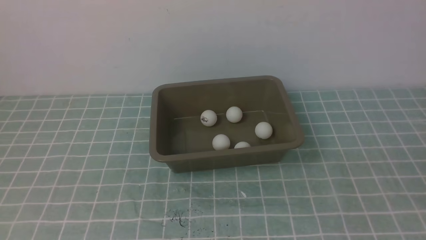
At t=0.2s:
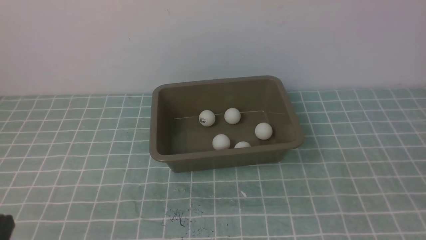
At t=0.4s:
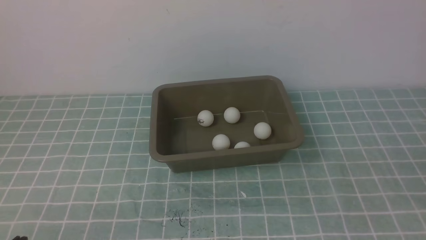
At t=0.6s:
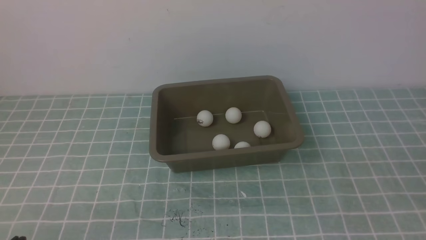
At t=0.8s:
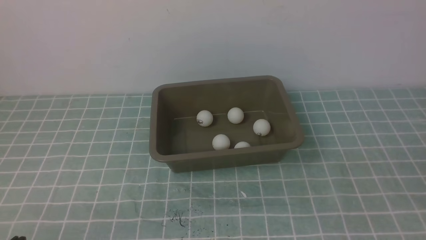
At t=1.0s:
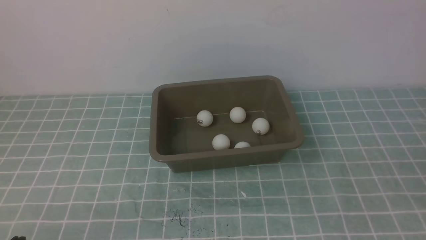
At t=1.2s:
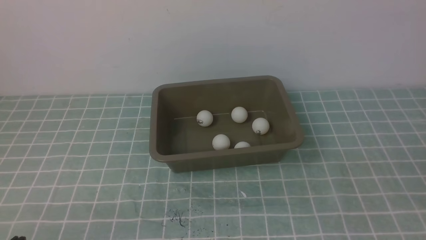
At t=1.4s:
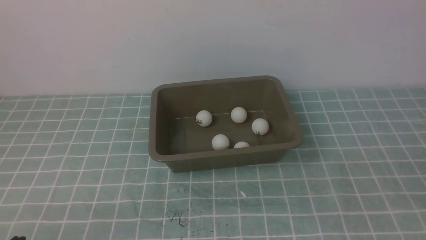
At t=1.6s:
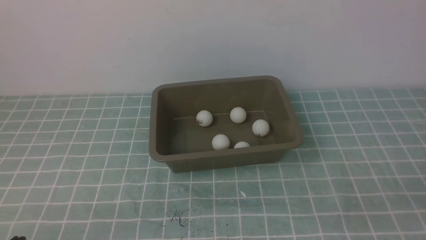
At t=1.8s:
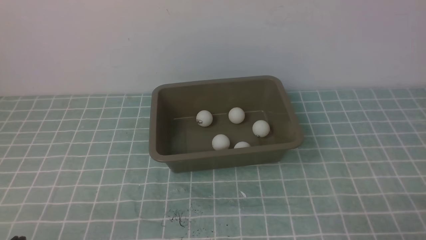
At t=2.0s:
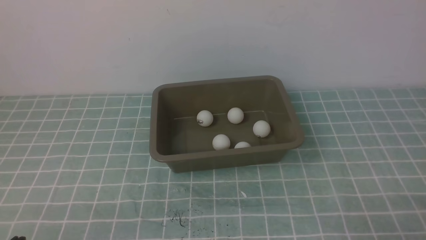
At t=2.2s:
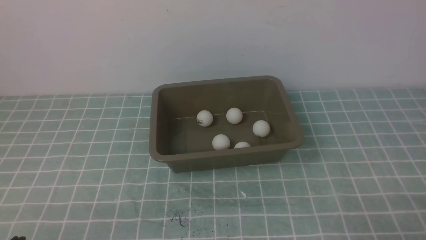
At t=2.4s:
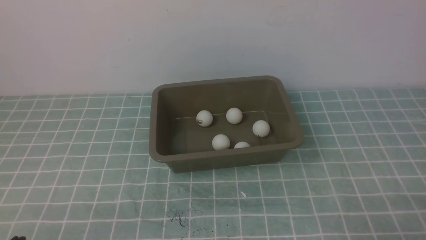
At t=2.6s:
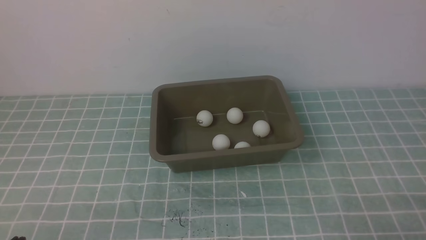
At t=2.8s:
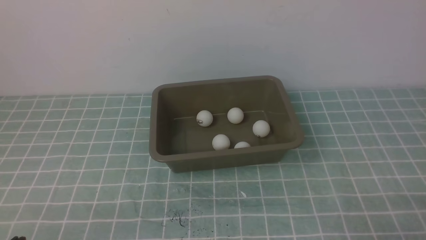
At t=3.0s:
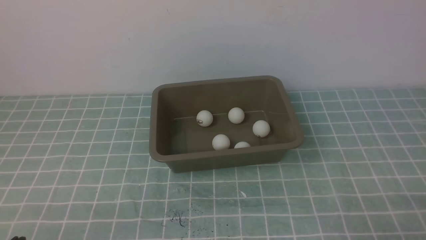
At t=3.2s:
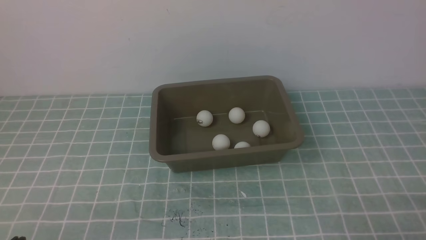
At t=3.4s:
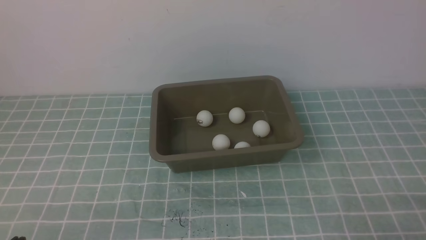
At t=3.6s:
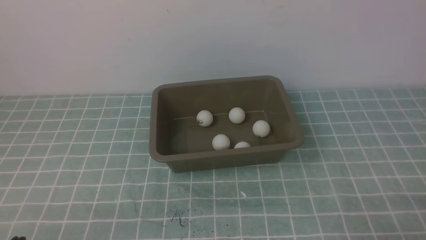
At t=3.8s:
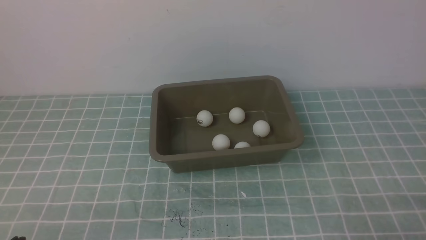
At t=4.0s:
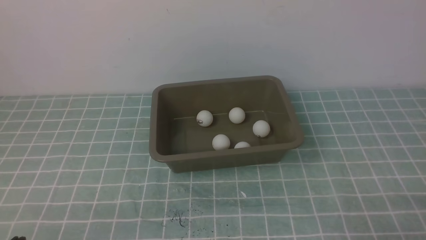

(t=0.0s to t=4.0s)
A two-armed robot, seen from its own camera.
t=0.0s - t=1.4s: The left gripper shifts about 15 cm downward.
t=2.6s - t=4.0s: Both grippers stay about where they are.
